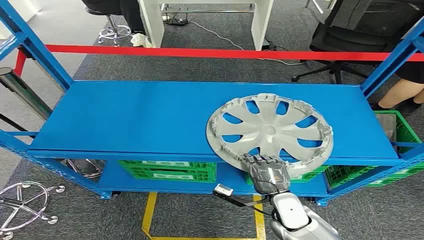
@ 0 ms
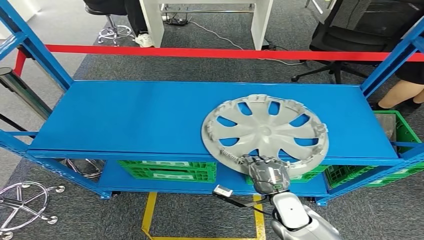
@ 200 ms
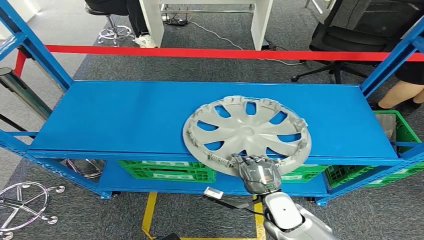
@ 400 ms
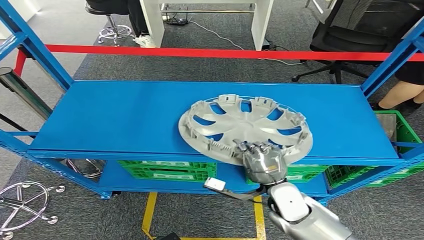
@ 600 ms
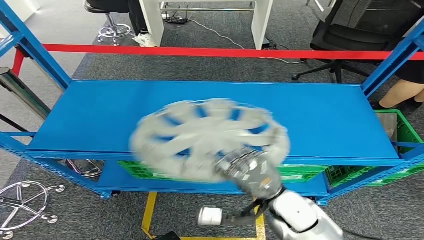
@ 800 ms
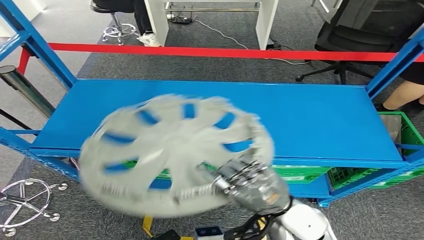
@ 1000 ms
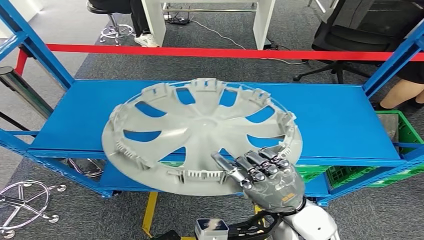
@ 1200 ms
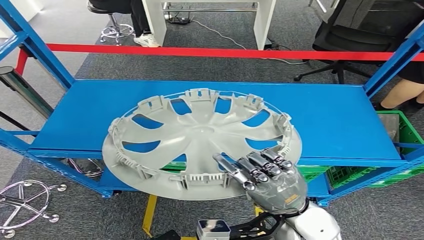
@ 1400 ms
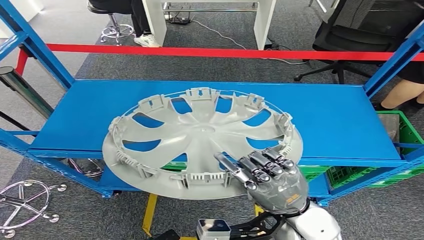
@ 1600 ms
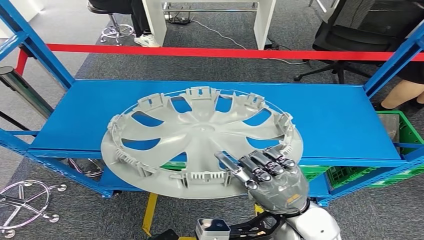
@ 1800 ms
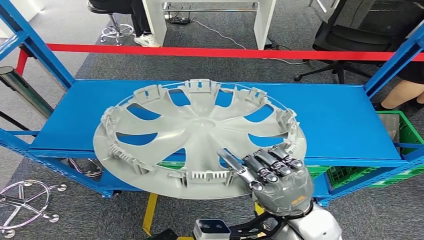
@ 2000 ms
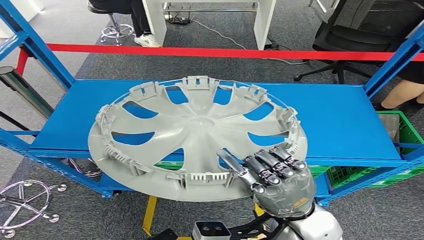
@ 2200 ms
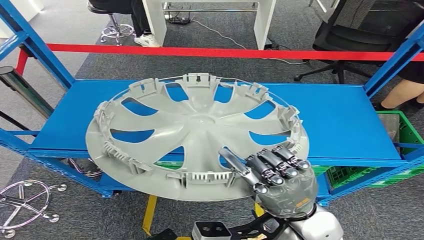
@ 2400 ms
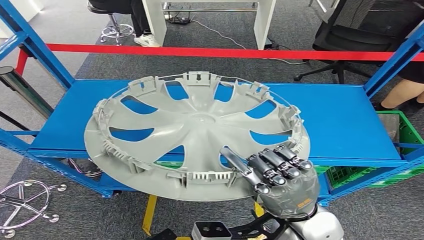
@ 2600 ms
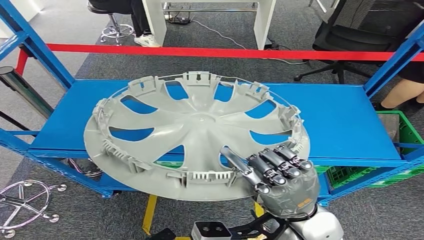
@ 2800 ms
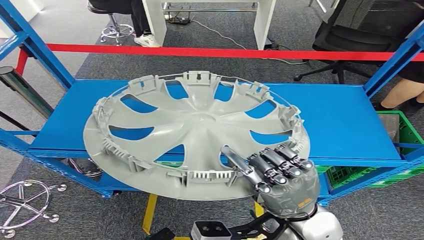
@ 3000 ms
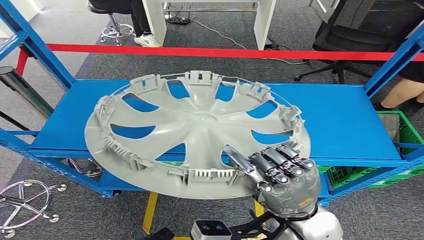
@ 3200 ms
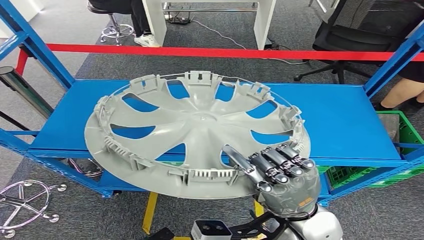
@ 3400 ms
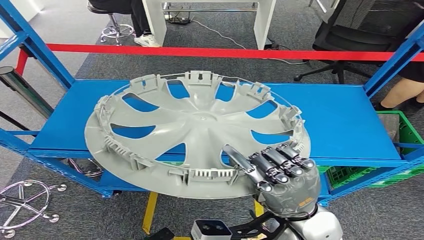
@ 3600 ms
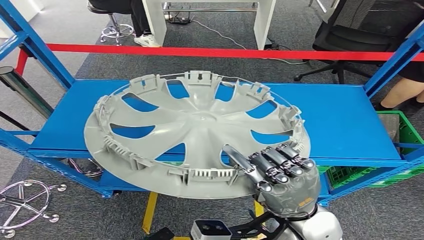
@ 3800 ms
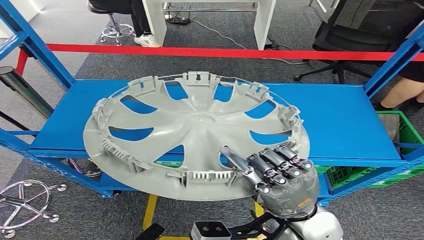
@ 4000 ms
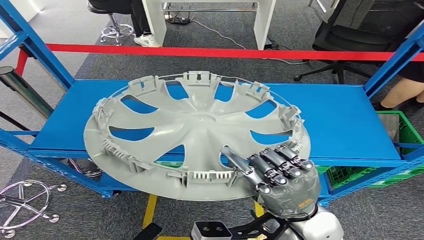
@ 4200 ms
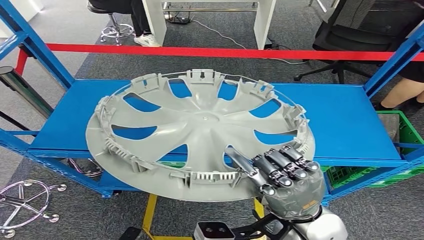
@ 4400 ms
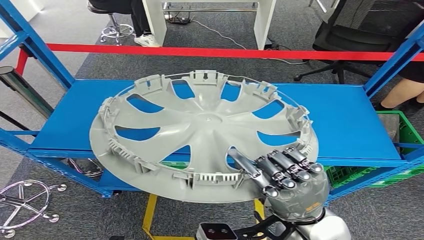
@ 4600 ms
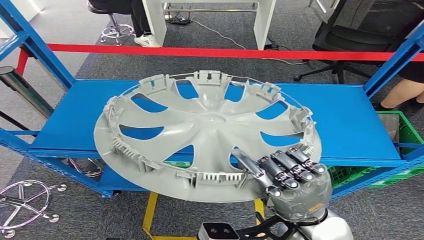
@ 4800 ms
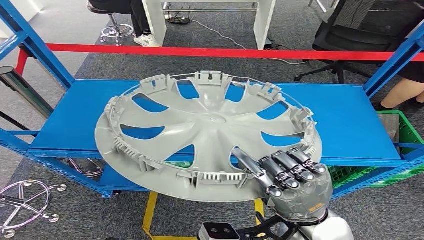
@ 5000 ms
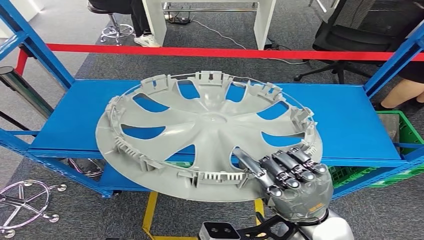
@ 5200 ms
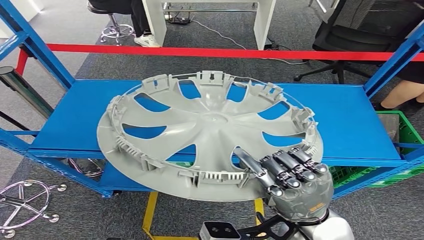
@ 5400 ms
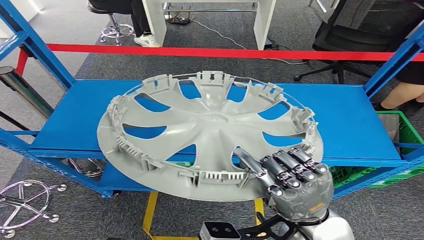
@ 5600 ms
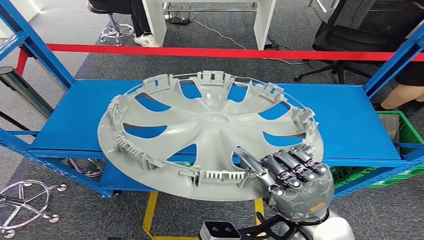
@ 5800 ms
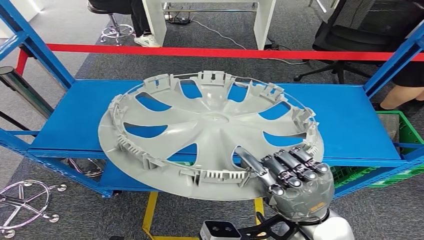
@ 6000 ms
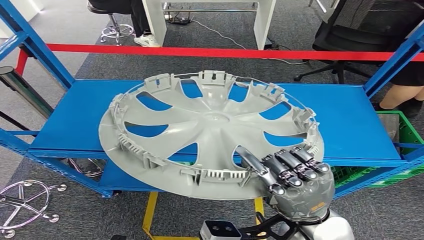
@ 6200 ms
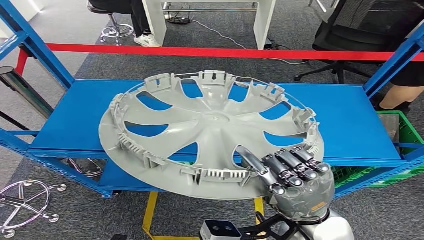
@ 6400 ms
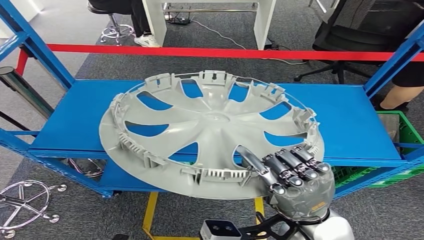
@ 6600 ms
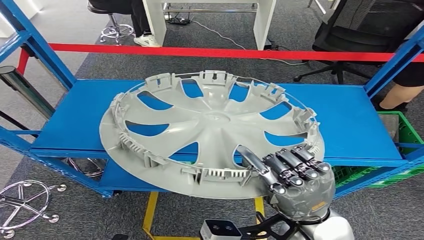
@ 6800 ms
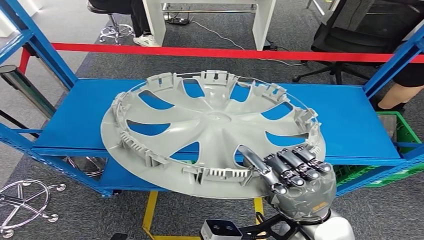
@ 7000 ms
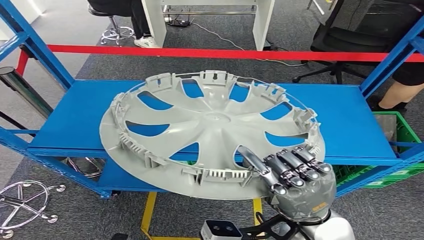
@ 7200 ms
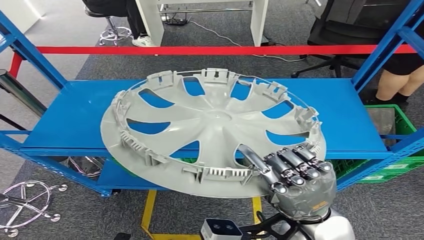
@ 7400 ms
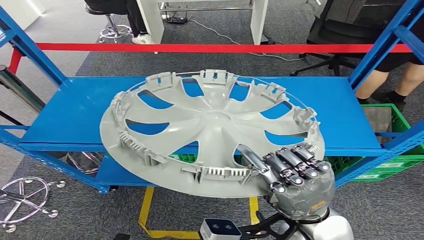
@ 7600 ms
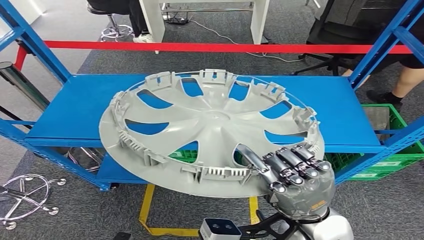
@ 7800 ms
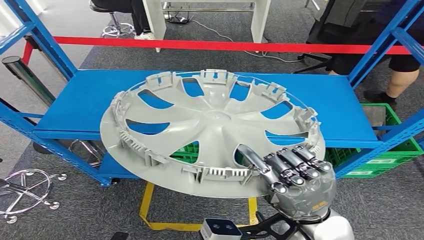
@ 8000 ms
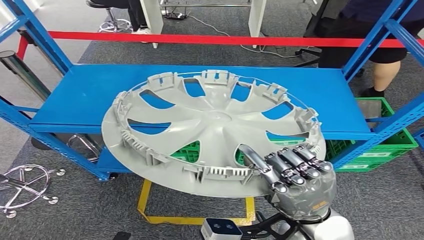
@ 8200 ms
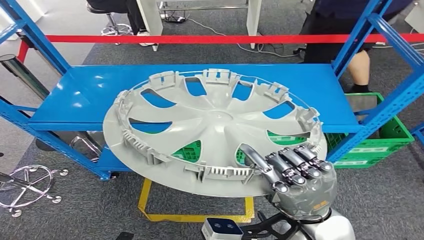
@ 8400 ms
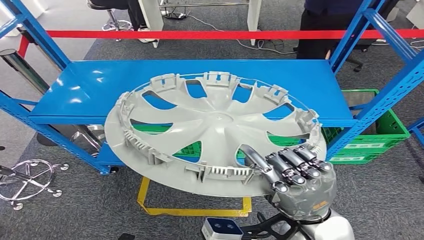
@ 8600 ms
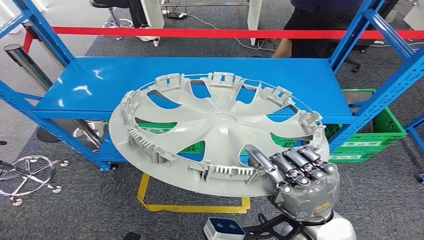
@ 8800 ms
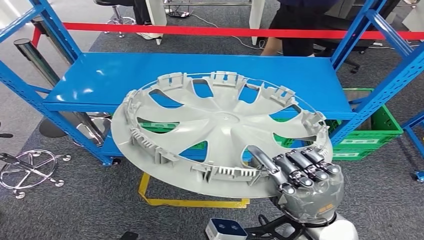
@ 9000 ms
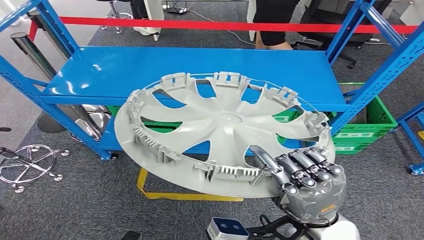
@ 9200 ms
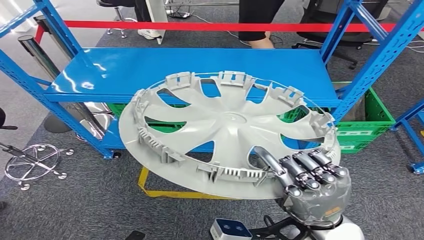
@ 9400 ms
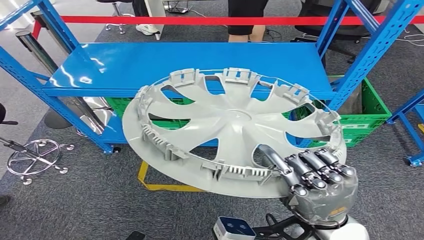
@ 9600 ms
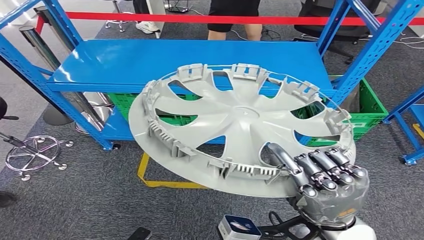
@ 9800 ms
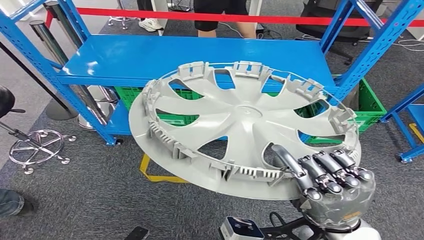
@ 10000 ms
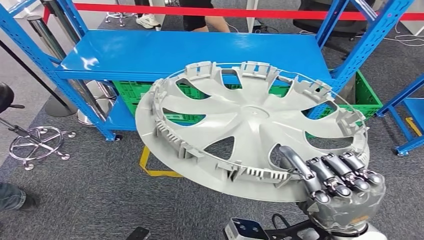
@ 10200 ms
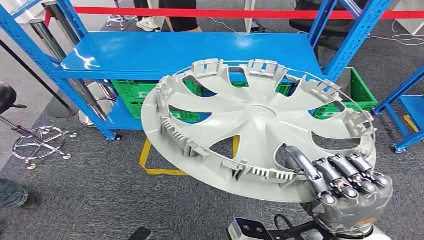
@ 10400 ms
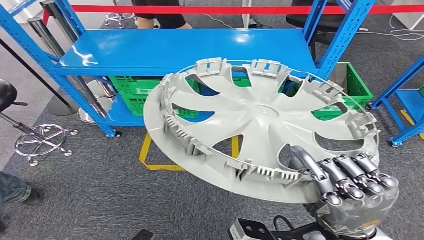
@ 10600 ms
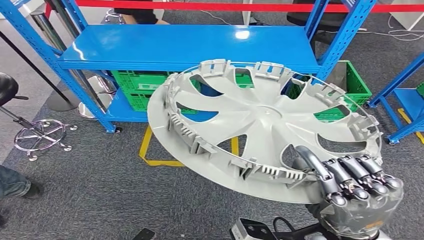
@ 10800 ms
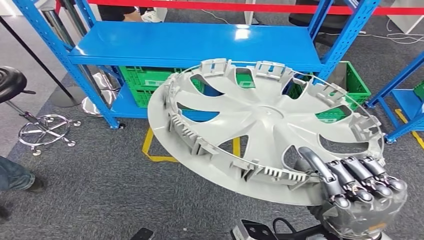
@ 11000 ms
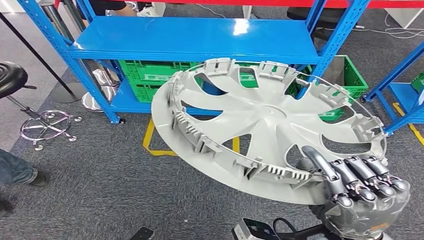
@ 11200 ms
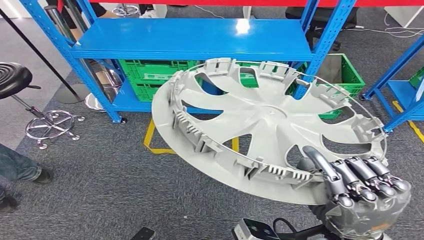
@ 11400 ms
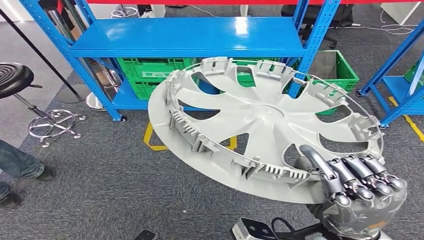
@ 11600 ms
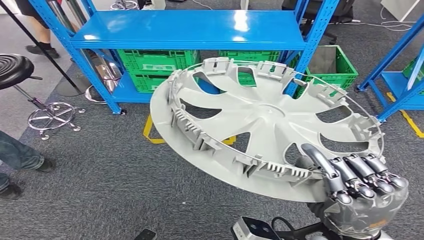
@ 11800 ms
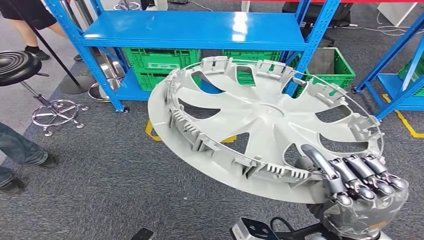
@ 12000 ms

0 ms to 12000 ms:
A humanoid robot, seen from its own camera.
Step, 0 ms to 4200 ms: Pick up the small component from the shelf.
1600 ms to 3000 ms: There are only small adjustments of the hands.
4400 ms to 6000 ms: There are only small adjustments of the hands.

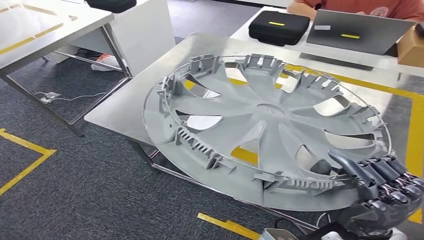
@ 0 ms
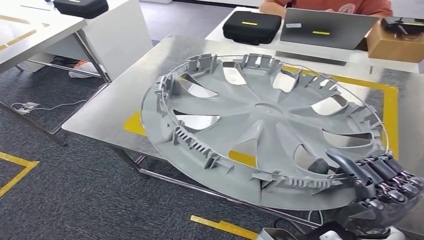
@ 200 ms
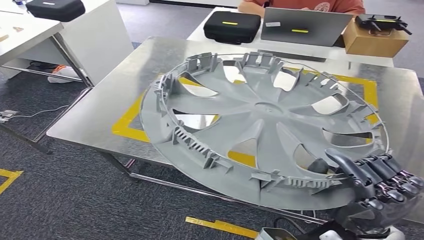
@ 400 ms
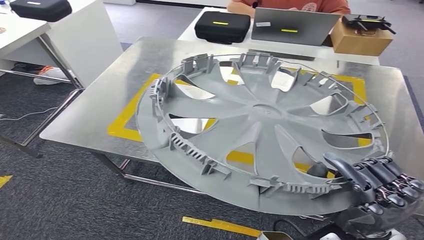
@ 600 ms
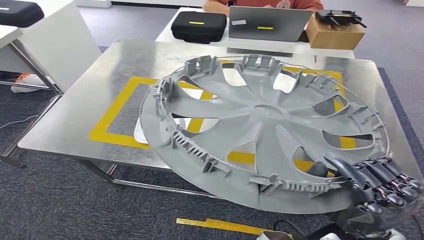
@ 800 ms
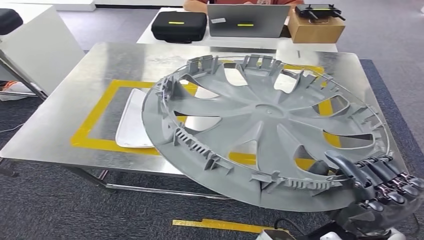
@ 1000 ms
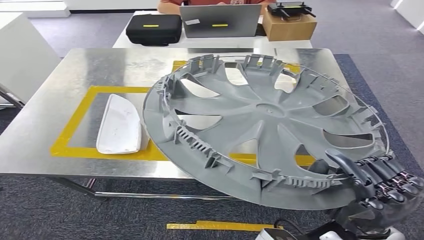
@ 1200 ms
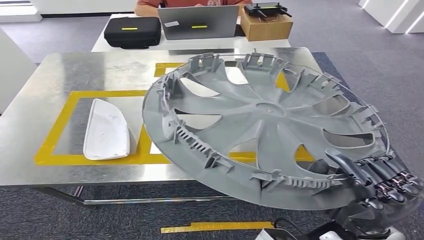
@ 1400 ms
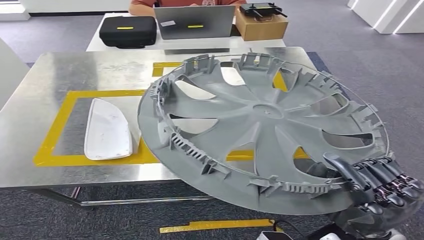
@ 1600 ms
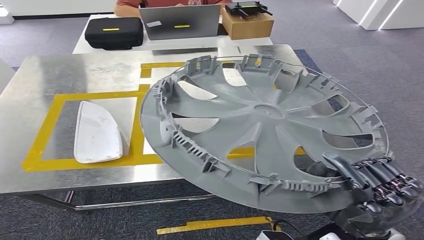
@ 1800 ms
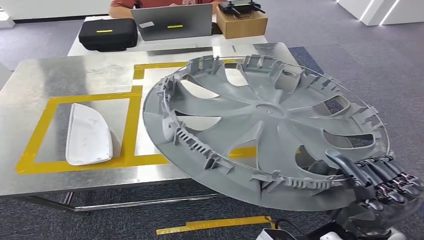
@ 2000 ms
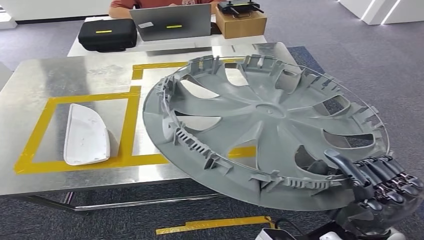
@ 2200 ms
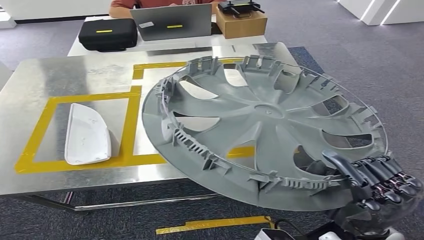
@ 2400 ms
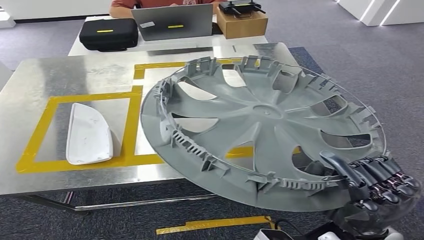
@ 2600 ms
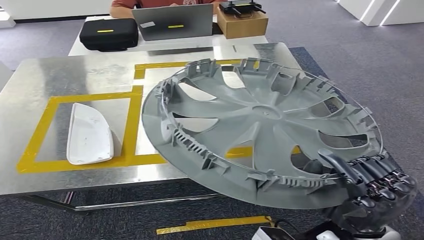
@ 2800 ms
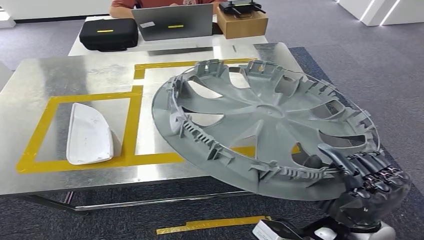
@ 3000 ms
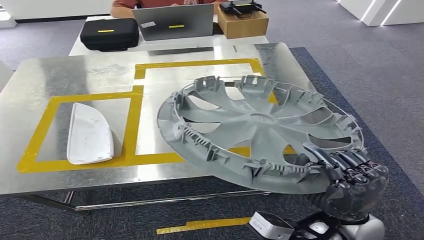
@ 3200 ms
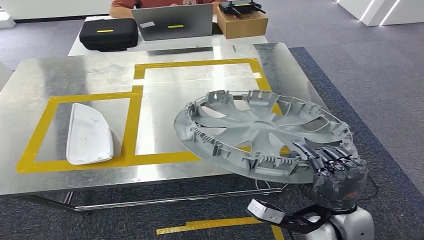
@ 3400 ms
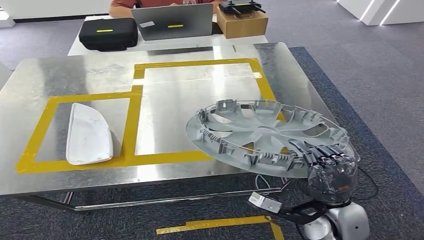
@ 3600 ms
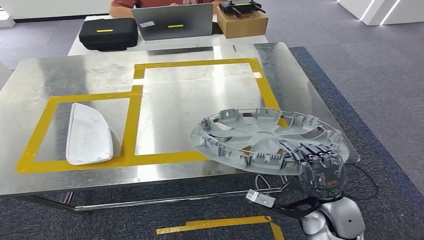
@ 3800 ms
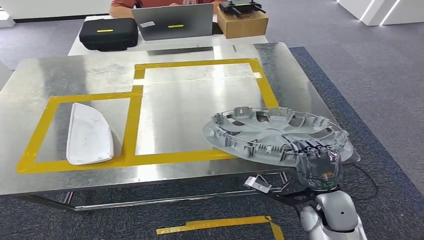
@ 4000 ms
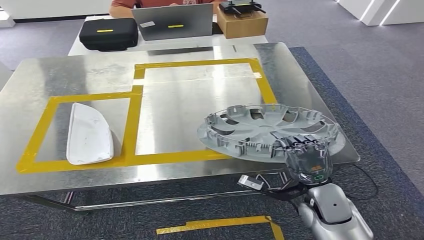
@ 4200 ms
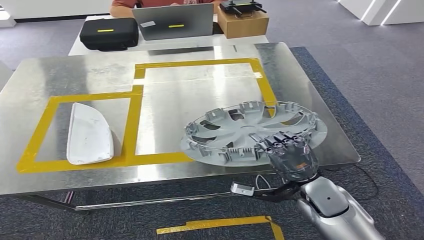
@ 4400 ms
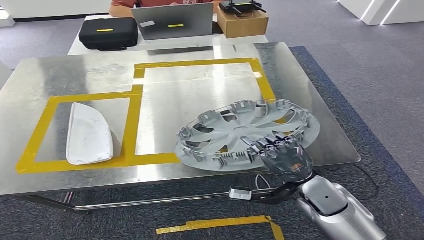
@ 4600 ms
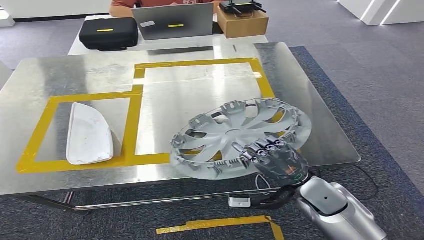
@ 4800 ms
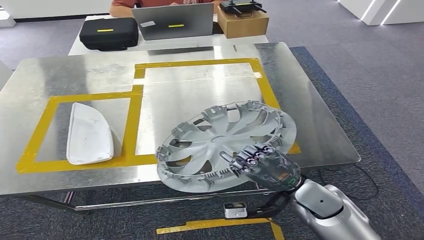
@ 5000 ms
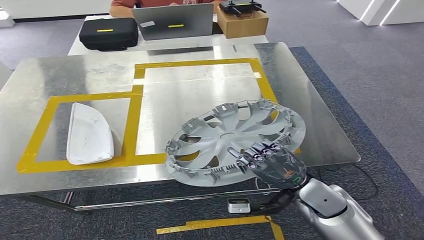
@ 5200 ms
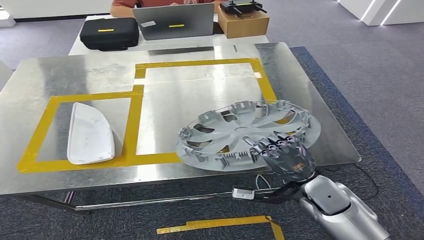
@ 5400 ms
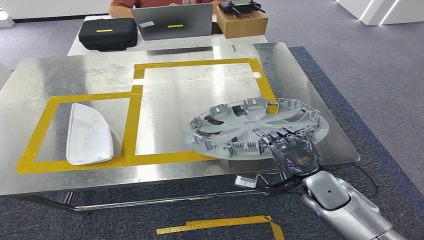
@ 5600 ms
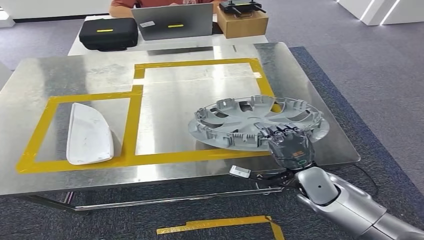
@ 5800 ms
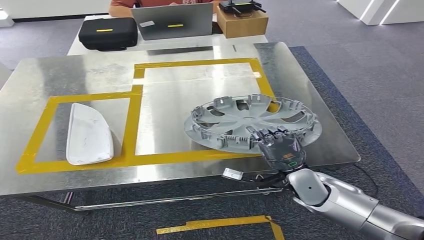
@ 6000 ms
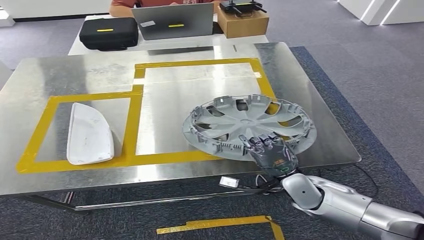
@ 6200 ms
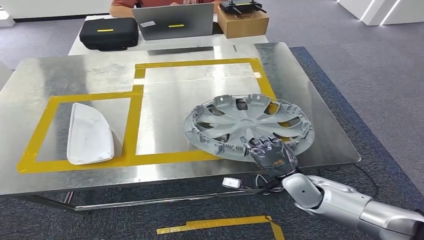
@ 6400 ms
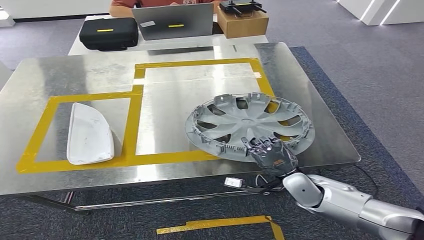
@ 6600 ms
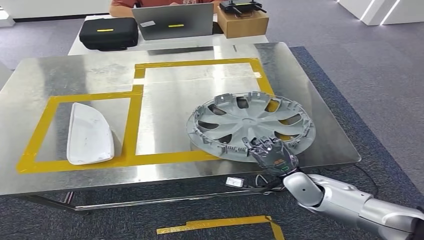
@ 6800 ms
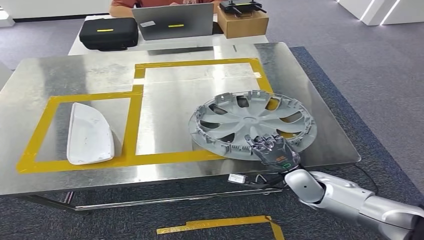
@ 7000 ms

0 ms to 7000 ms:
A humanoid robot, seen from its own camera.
Step, 0 ms to 3000 ms: Bring the small component to the front of the workbench.
5600 ms to 7000 ms: The right hand moves downward, some 5 cm.
